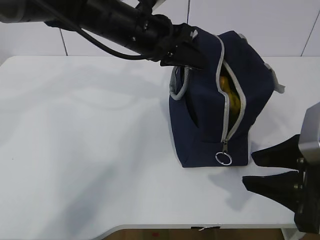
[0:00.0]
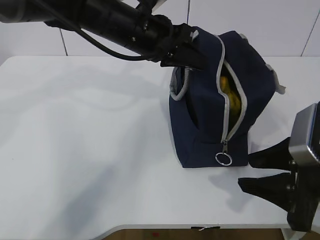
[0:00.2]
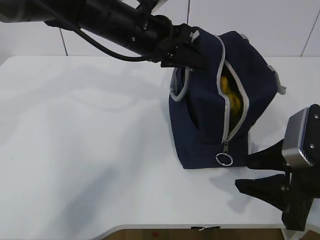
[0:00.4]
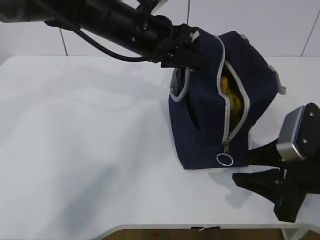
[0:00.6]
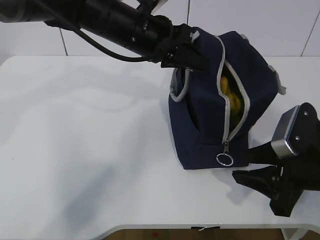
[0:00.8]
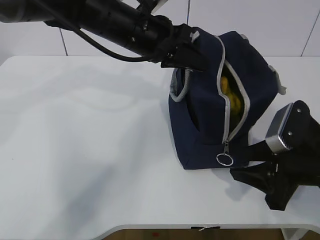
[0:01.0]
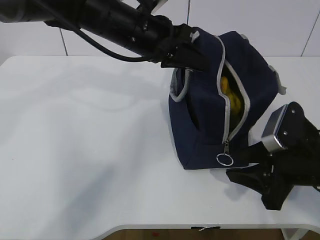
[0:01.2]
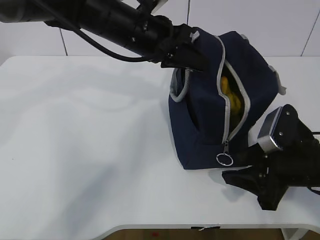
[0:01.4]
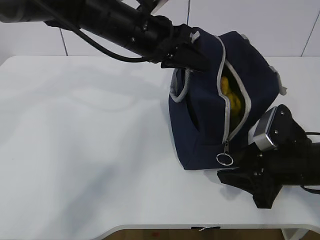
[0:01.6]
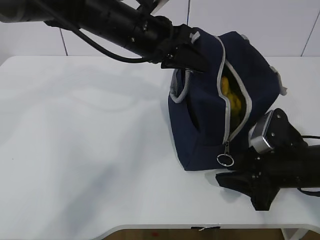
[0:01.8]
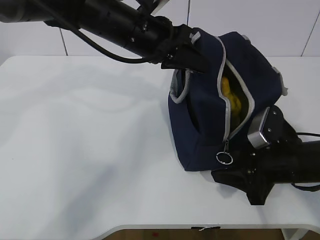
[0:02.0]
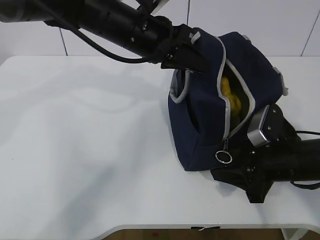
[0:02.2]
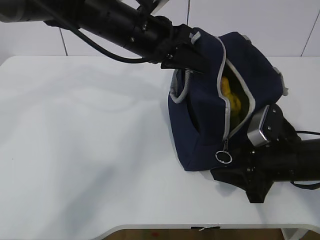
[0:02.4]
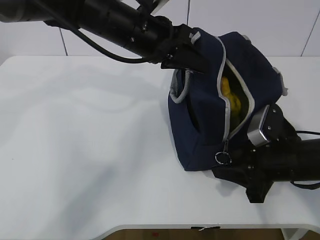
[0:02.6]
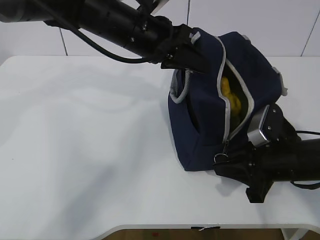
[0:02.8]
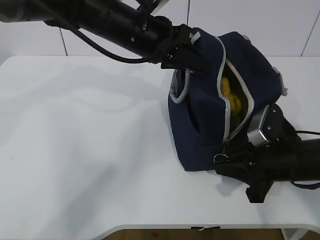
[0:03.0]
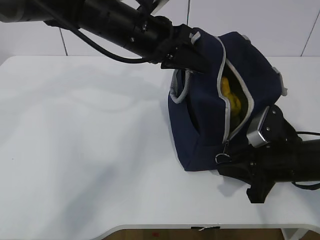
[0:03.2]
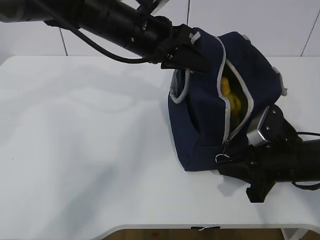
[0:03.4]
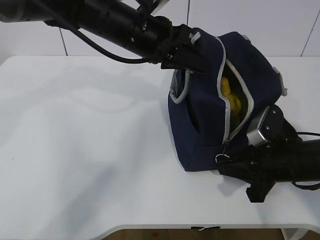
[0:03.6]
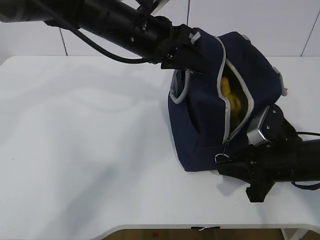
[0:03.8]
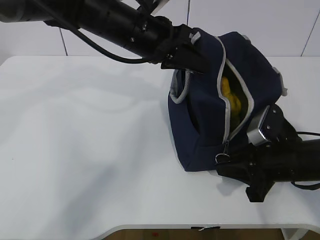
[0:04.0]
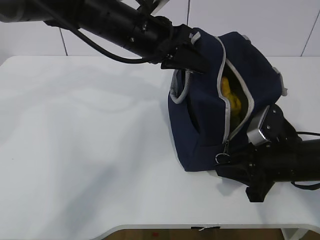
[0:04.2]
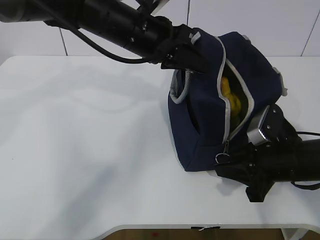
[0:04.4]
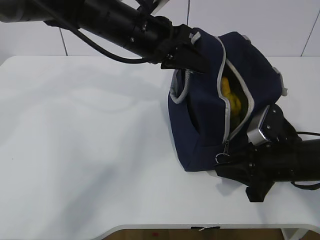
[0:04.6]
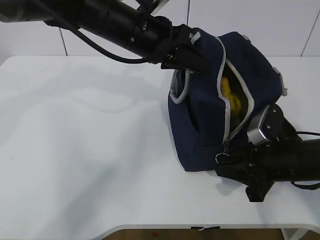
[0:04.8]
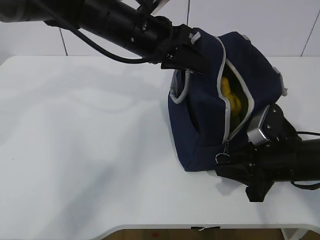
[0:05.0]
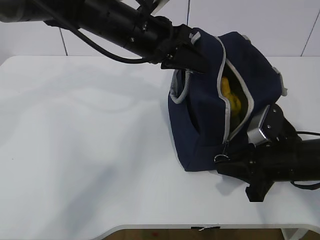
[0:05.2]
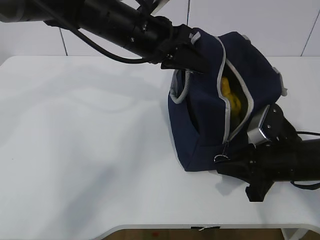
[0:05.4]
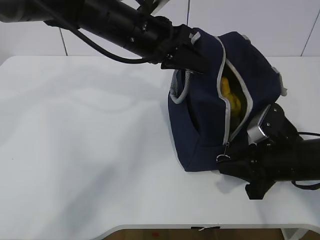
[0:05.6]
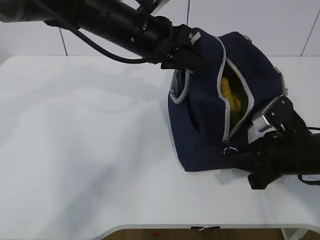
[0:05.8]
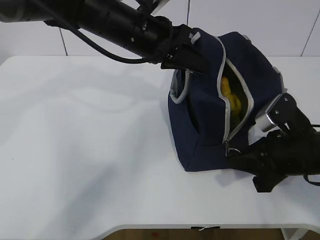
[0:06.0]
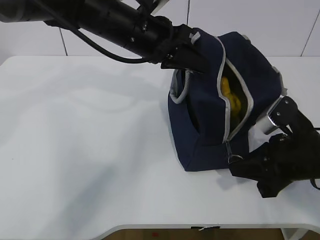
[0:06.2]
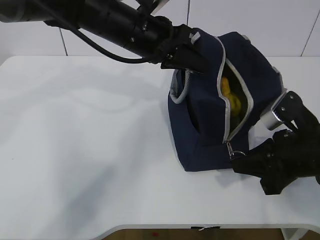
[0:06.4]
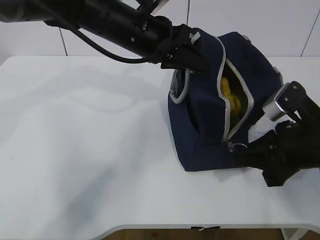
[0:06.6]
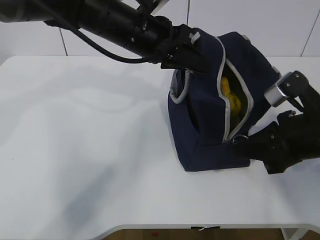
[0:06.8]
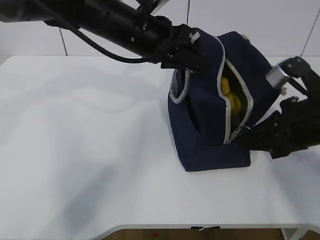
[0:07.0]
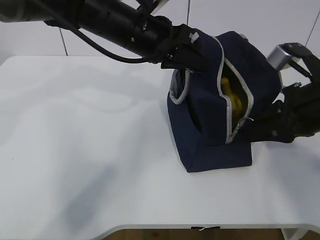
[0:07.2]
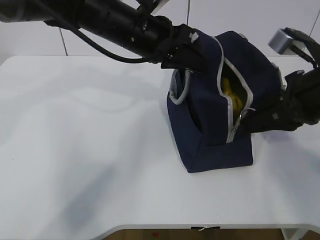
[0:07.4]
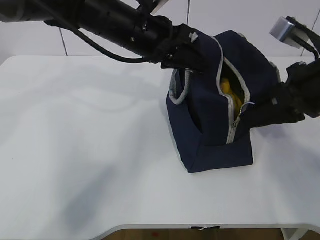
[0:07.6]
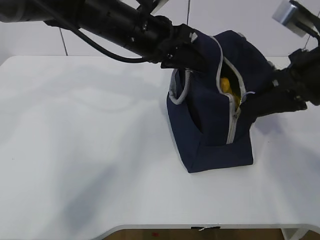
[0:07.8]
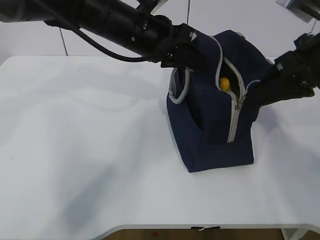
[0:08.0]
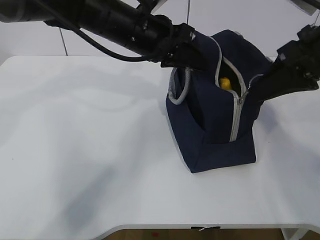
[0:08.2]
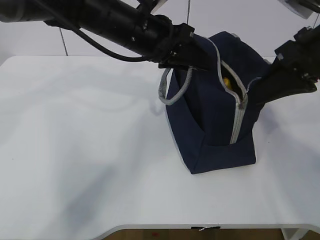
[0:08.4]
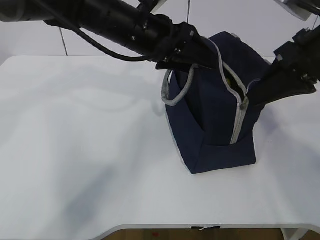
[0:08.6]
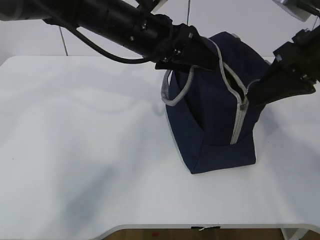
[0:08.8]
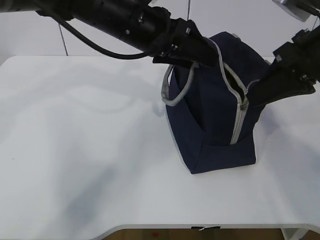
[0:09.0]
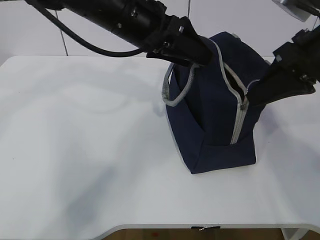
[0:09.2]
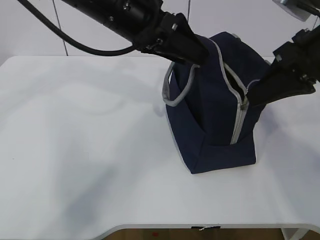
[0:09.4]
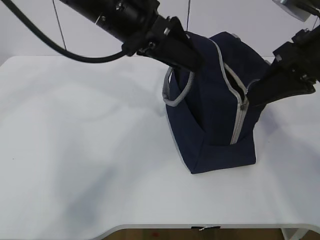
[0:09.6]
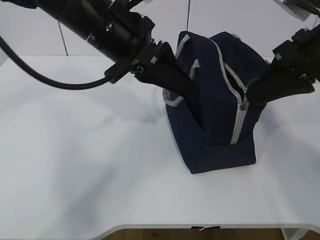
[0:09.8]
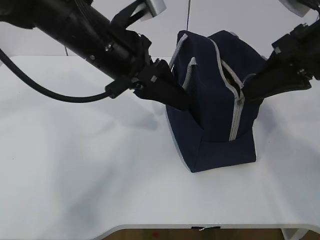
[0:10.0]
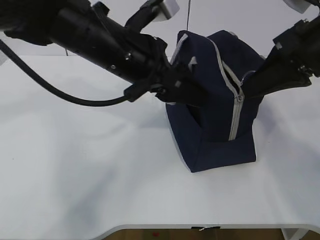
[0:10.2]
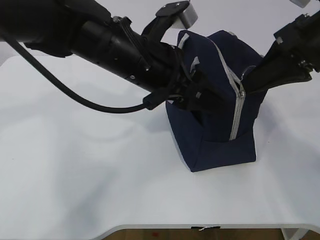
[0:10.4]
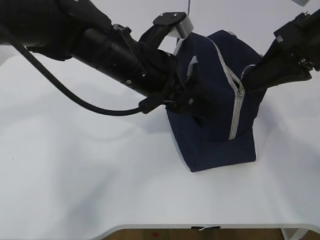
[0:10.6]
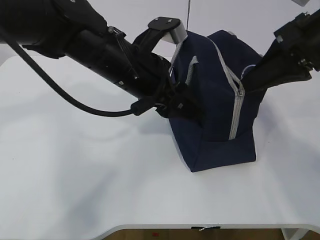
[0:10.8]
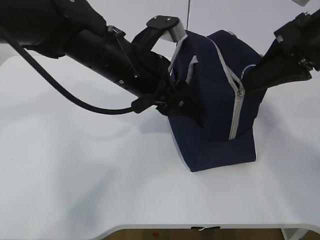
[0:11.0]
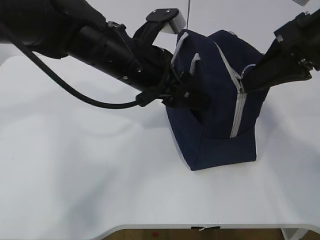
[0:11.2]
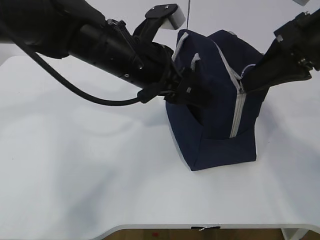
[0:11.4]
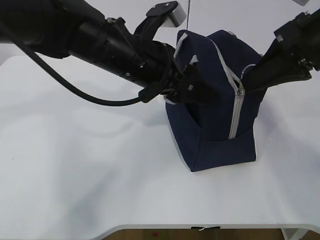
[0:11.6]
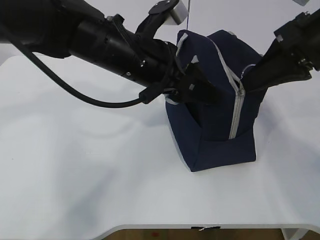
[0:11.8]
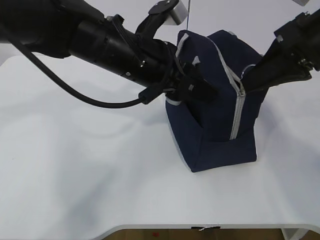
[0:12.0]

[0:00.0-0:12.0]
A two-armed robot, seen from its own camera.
0:00.0 to 0:01.6: The right gripper travels downward and forward by roughly 10 cm.
0:01.6 to 0:03.0: The right gripper closes.
0:03.0 to 0:04.4: Both grippers stay put.
0:04.4 to 0:06.0: The grippers make only small movements.
0:06.0 to 0:07.6: The right gripper travels upward by about 10 cm.
0:07.6 to 0:09.0: The left gripper opens its fingers.
0:09.0 to 0:10.4: The left gripper heads backward, covering some 5 cm.
0:10.4 to 0:12.0: There are only small adjustments of the grippers.

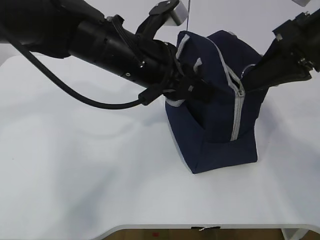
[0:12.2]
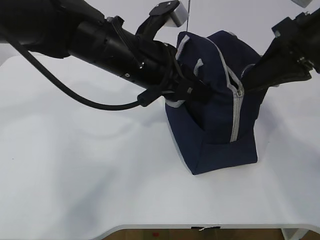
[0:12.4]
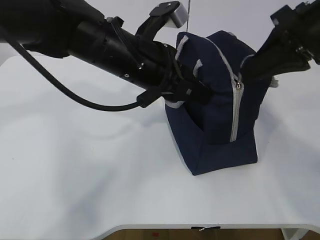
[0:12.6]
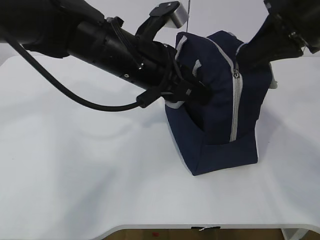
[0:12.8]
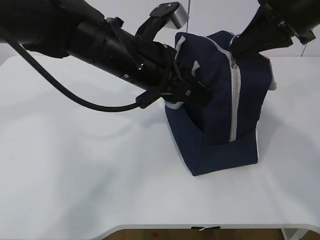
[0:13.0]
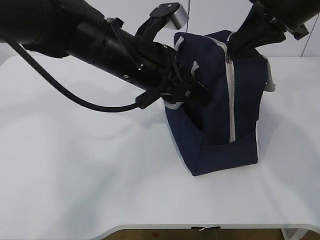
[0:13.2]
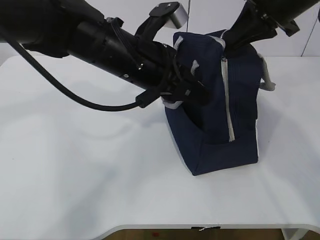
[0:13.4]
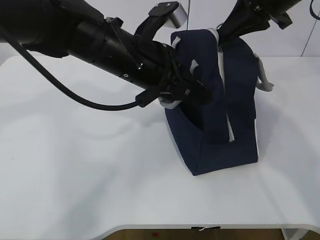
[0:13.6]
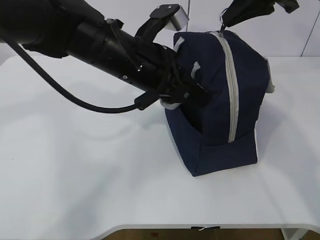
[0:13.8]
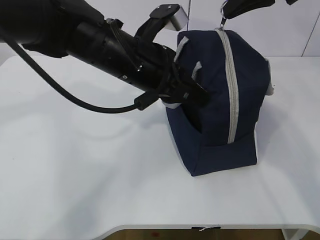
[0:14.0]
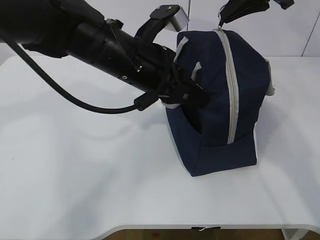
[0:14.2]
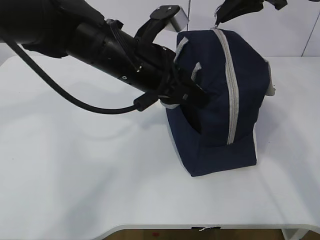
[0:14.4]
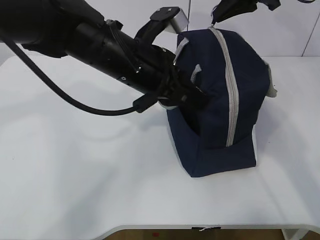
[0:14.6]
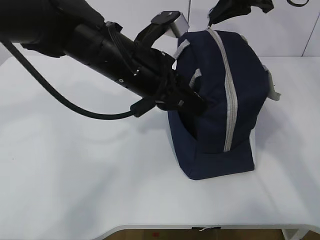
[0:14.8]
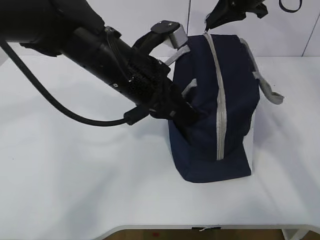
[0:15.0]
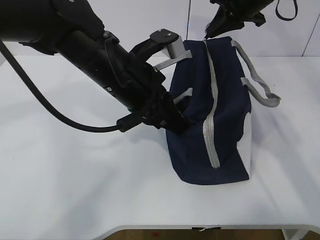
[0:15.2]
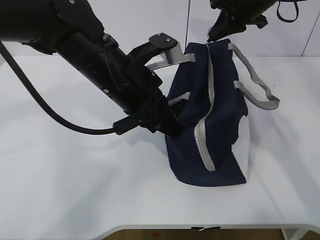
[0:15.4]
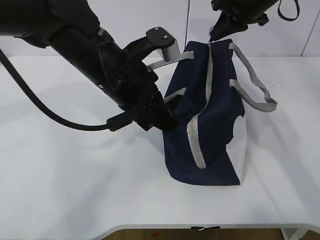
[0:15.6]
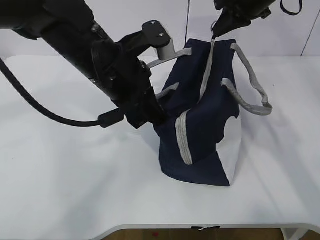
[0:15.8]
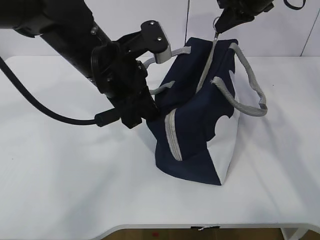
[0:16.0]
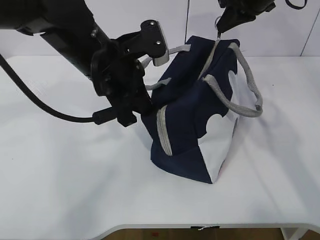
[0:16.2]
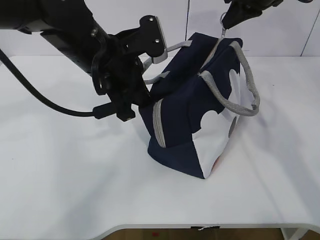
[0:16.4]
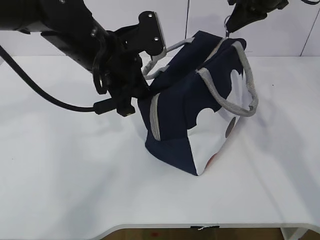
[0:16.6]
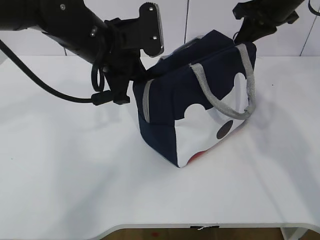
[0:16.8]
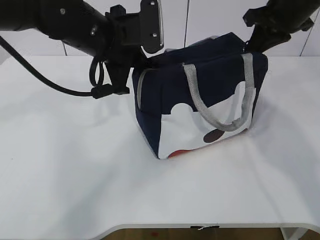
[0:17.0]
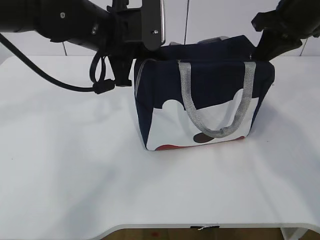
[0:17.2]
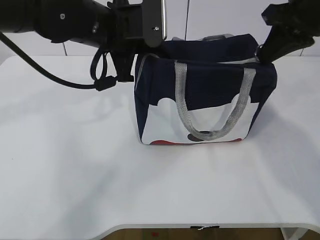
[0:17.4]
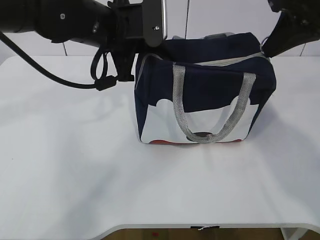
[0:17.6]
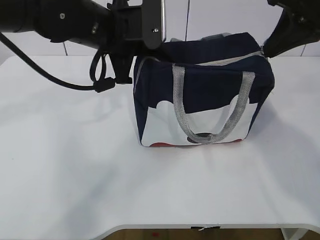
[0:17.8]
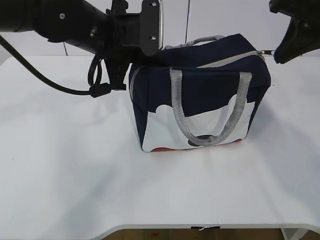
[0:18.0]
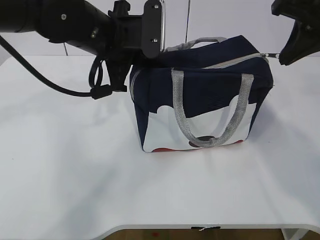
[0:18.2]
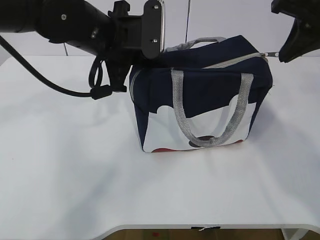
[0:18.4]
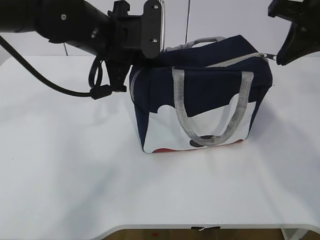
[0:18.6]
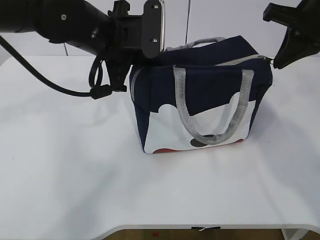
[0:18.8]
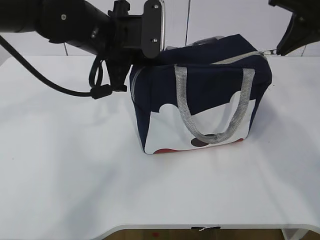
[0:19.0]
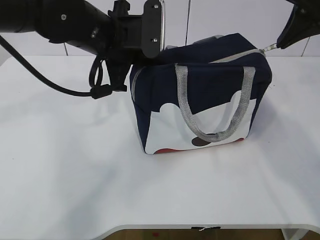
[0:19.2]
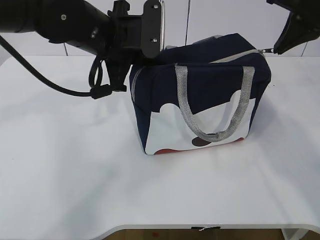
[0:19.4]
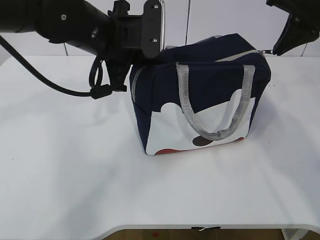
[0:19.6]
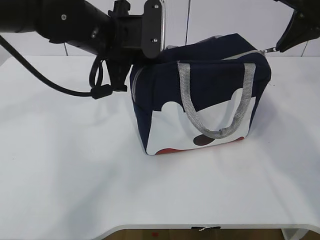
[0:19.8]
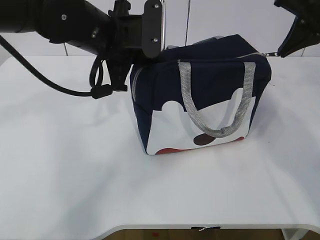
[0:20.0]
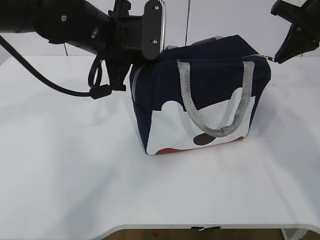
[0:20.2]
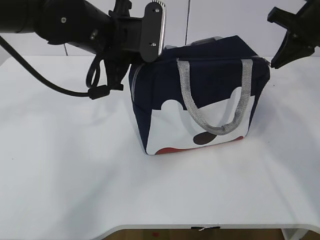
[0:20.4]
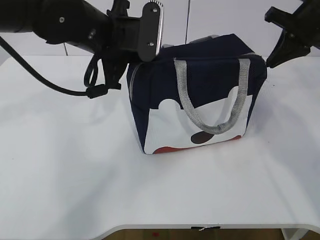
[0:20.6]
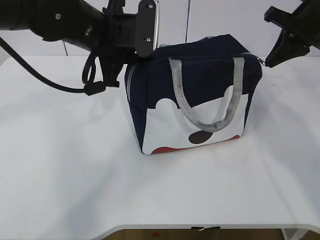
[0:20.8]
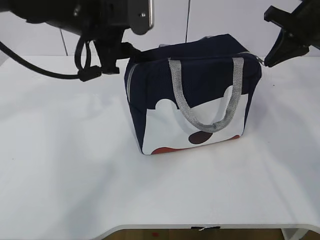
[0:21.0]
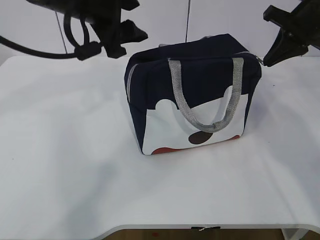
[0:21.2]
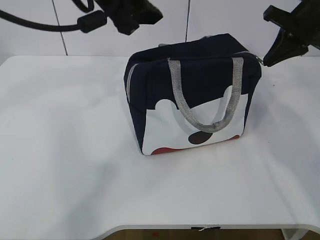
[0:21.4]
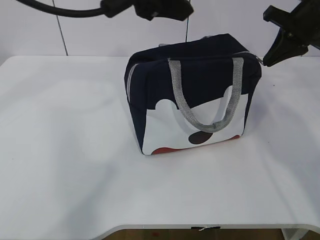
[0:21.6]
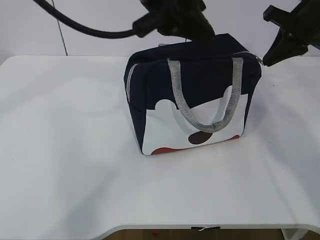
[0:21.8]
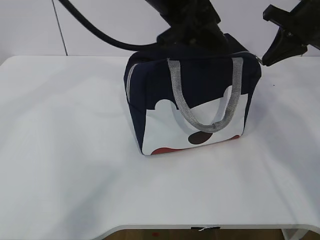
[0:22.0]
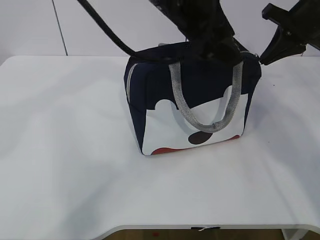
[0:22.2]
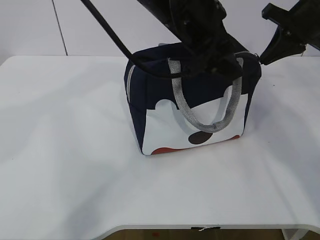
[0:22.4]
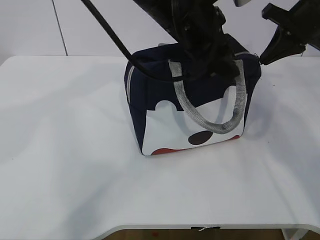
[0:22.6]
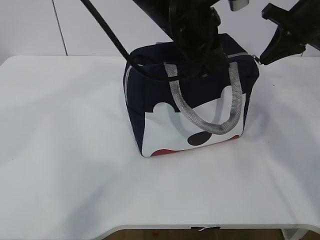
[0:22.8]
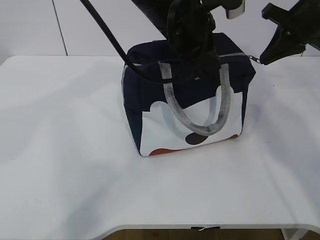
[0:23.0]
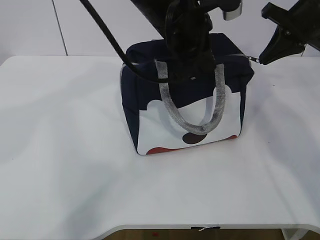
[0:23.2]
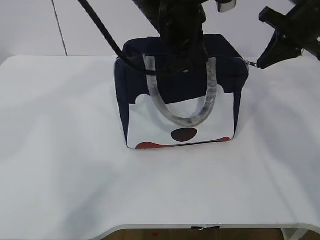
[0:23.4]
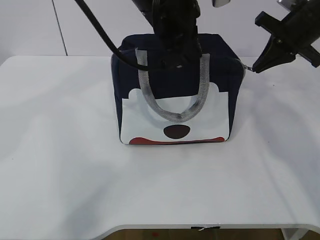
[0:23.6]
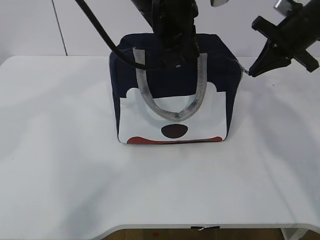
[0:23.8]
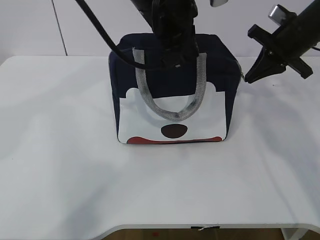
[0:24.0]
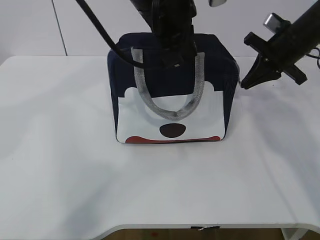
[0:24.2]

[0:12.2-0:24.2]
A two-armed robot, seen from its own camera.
0:12.2 to 0:13.8: The right gripper is displaced forward by about 10 cm.
0:13.8 to 0:15.2: The right gripper shifts roughly 10 cm forward and downward.
0:16.6 to 0:18.2: The right gripper heads backward, covering approximately 15 cm.
0:18.2 to 0:19.8: The right gripper moves about 5 cm.
0:19.8 to 0:21.2: The left gripper shifts some 5 cm upward, and opens its fingers.
0:21.2 to 0:22.6: The left gripper heads to the right, covering about 10 cm.
0:22.6 to 0:24.2: The left gripper closes its fingers; the right gripper is displaced downward by roughly 5 cm.
